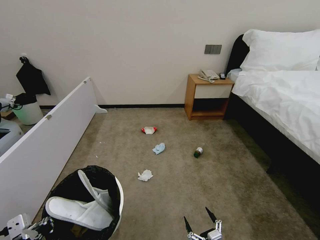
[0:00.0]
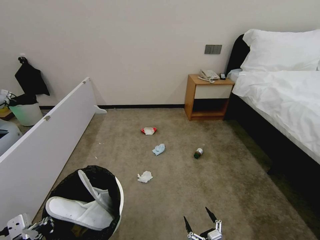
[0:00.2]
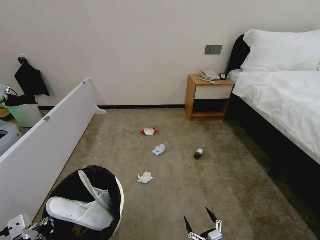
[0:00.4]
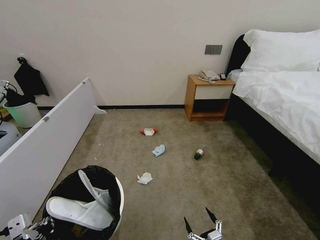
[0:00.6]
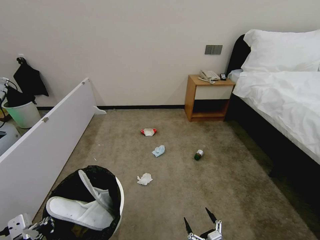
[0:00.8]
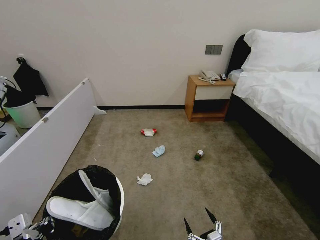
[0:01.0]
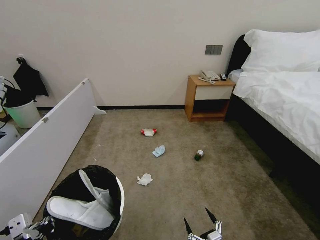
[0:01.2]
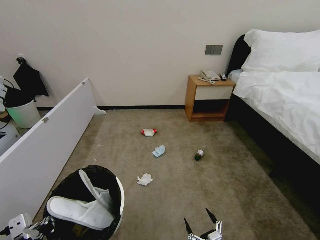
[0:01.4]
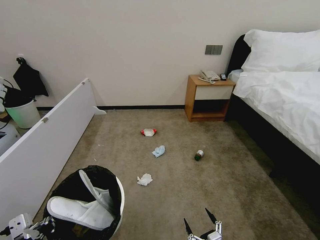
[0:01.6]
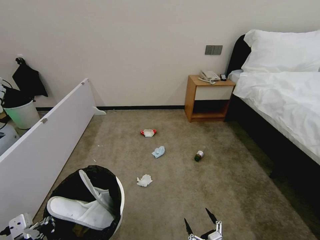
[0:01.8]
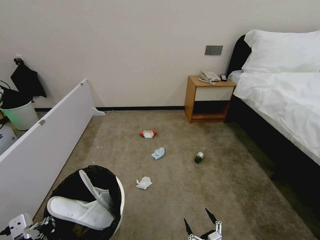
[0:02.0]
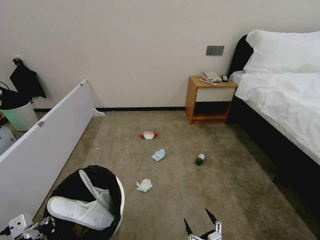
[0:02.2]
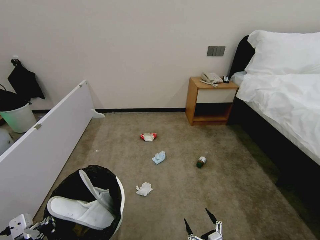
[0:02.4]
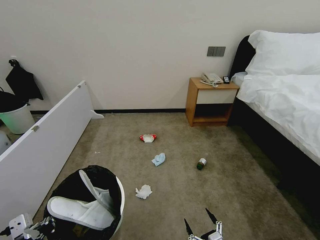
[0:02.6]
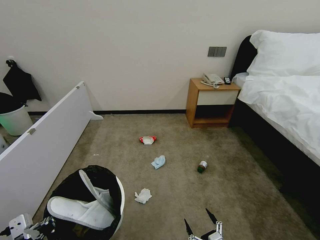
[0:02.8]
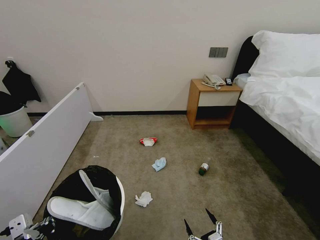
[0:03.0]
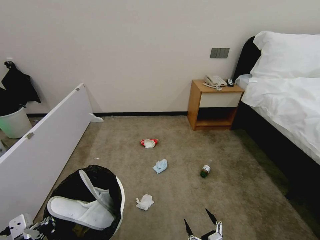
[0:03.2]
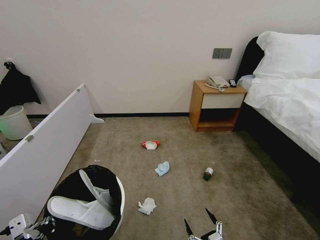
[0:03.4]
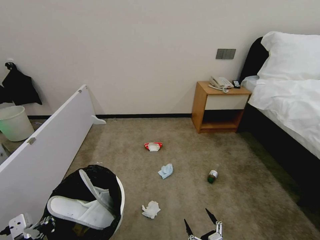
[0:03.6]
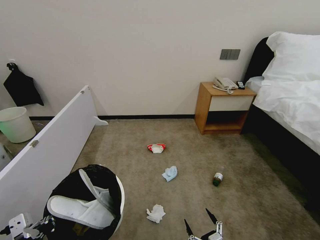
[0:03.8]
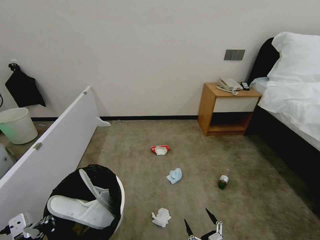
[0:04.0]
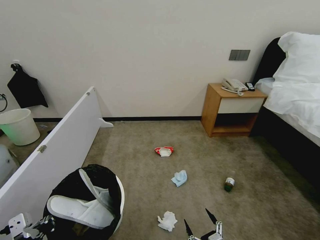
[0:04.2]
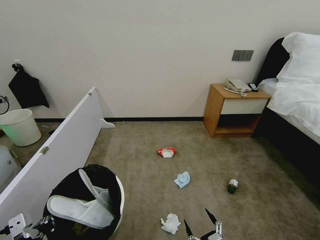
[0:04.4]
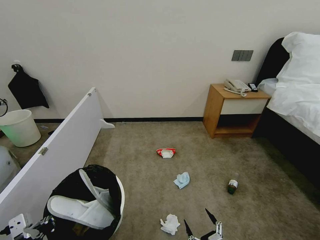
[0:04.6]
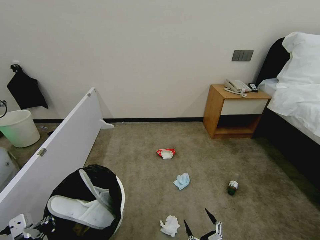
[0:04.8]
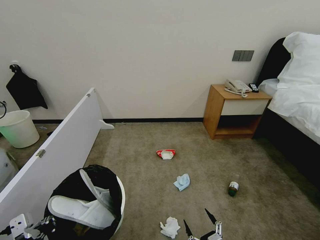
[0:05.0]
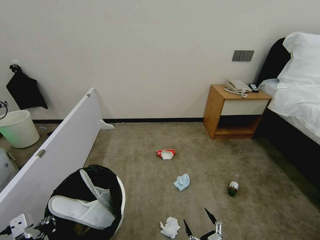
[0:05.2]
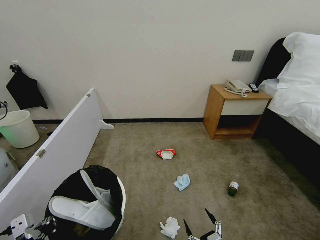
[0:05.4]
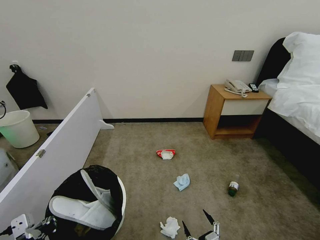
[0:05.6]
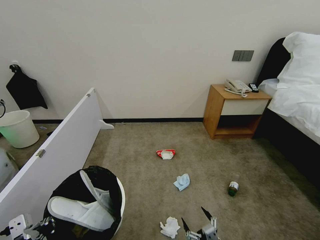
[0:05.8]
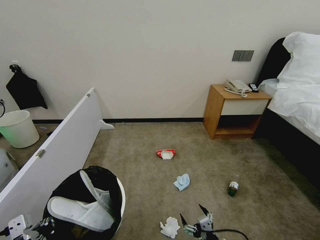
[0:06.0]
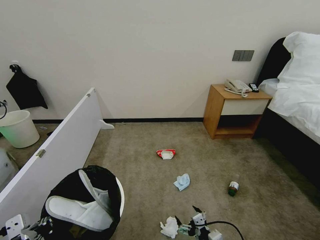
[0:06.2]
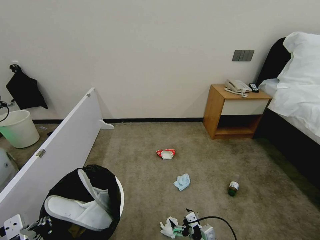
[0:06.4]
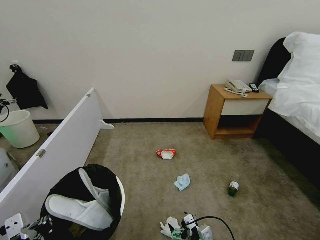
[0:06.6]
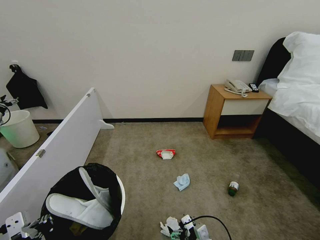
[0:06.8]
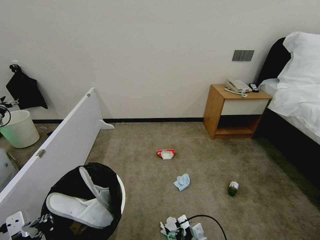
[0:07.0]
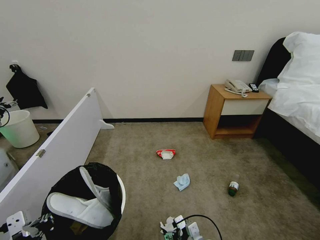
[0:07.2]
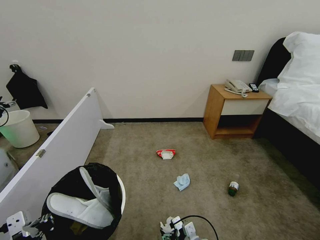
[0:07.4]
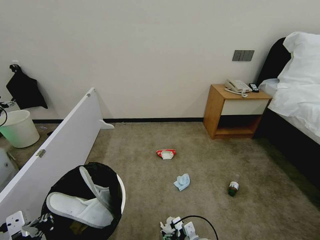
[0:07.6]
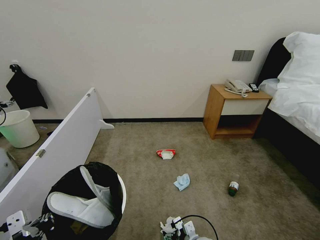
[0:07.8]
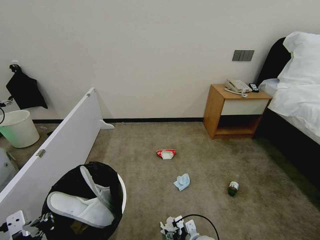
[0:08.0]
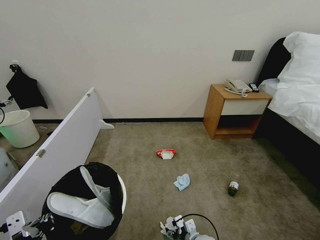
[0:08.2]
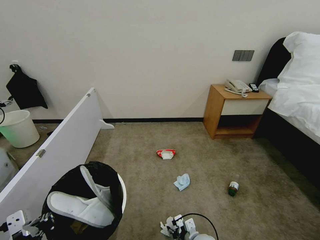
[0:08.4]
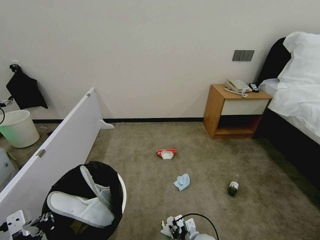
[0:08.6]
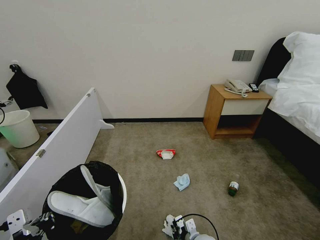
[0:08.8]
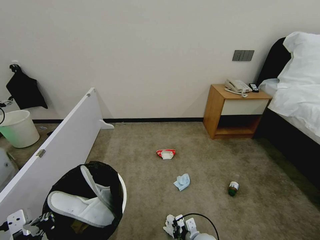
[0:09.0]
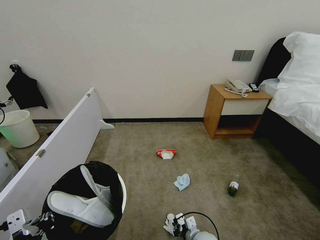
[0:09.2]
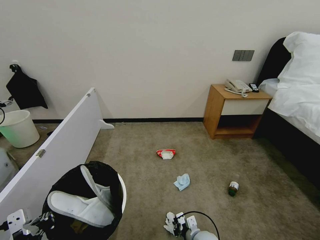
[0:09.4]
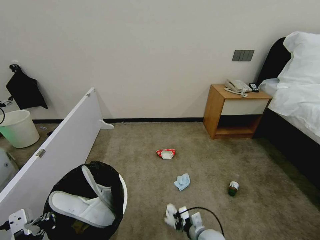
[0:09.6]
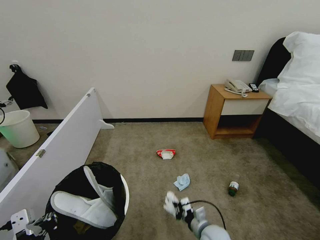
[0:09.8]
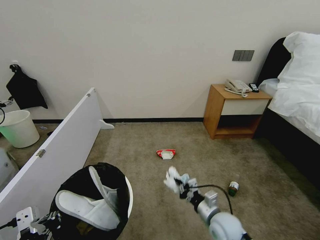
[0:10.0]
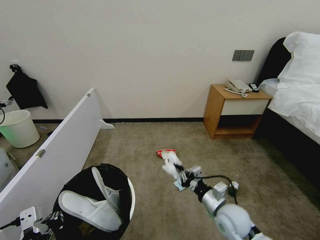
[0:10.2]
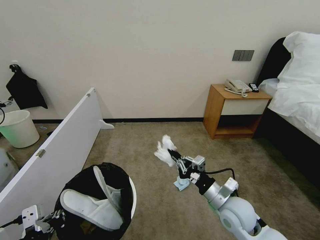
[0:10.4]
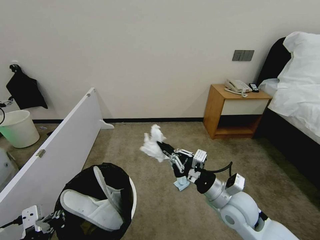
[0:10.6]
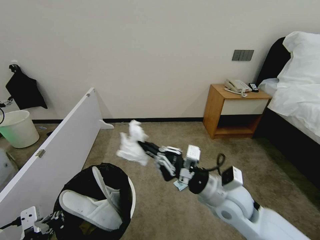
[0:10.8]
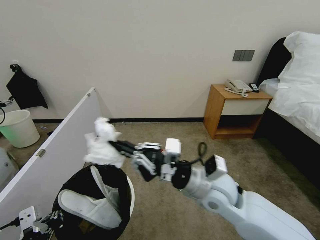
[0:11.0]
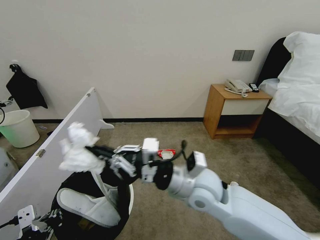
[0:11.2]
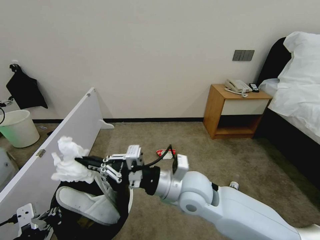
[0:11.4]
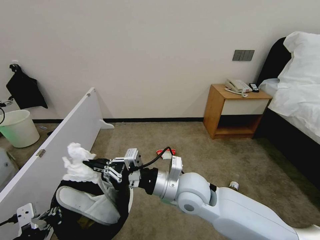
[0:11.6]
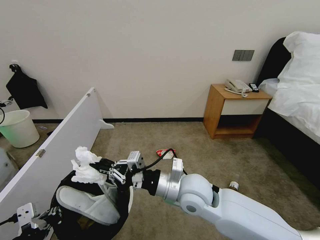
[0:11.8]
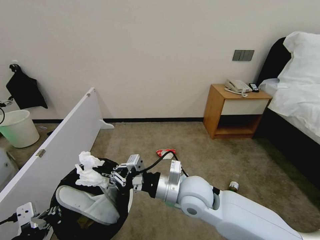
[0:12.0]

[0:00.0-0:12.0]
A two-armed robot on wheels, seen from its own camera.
Task of the whole recording: Pick up the trash bin, then pick up the garbage from the floor and place it into the trash bin.
0:00.0 to 0:03.0: Both grippers stay put.
0:04.4 to 0:06.0: The right gripper shifts approximately 5 cm forward.
0:06.0 to 0:07.6: The right gripper is displaced forward and to the left by about 10 cm.
0:07.6 to 0:09.0: The right gripper closes its fingers.
0:09.0 to 0:10.4: The right gripper is displaced upward by about 25 cm.
0:10.4 to 0:12.0: The right gripper shifts some 15 cm to the left and upward.

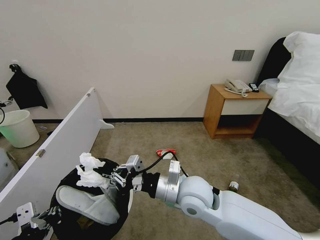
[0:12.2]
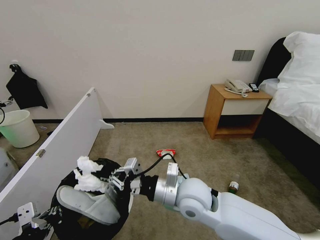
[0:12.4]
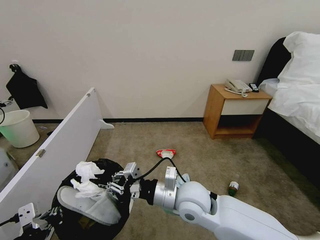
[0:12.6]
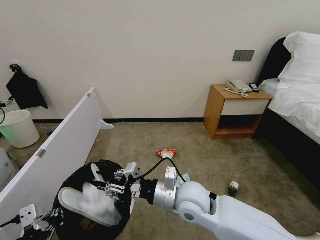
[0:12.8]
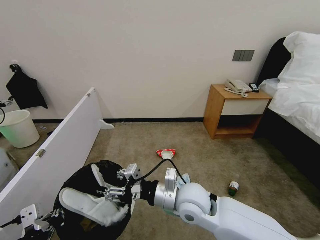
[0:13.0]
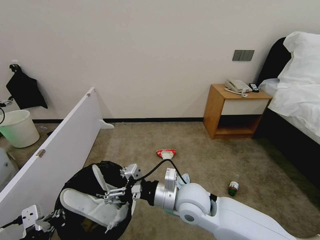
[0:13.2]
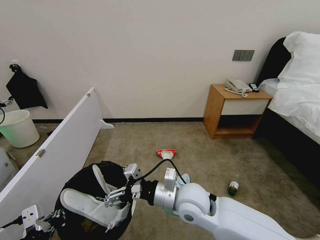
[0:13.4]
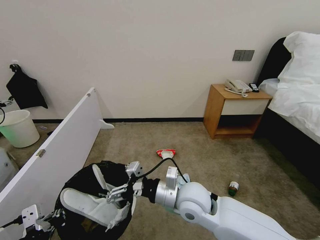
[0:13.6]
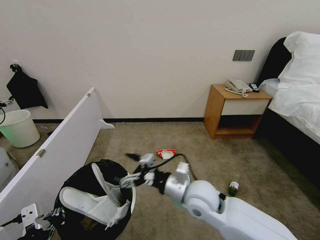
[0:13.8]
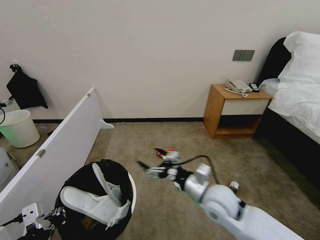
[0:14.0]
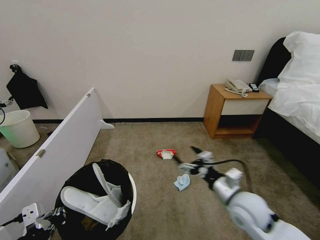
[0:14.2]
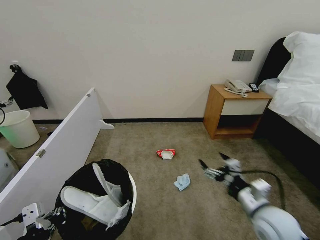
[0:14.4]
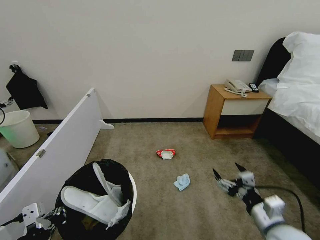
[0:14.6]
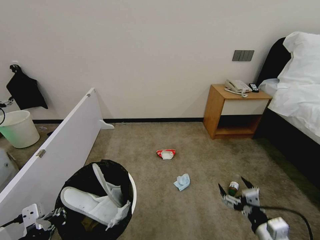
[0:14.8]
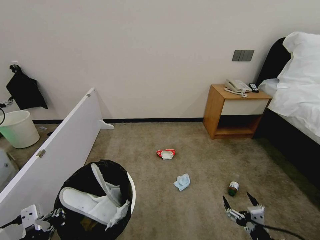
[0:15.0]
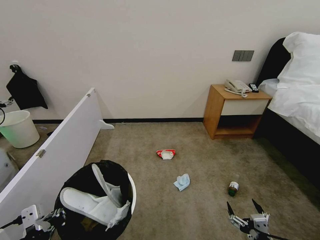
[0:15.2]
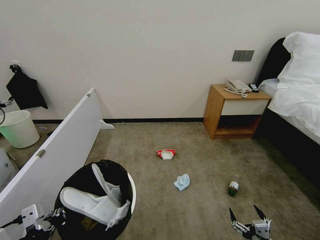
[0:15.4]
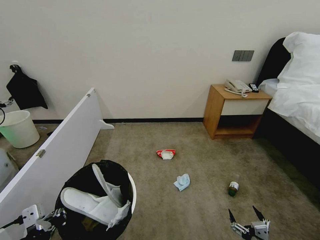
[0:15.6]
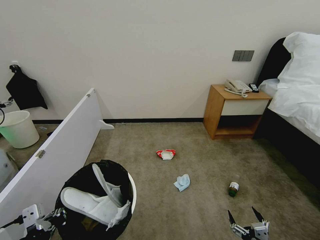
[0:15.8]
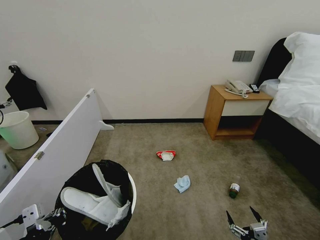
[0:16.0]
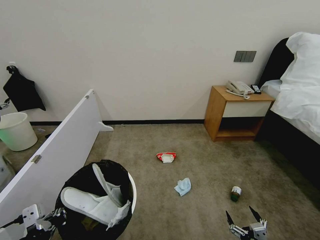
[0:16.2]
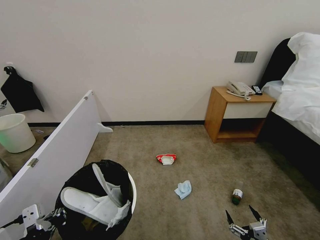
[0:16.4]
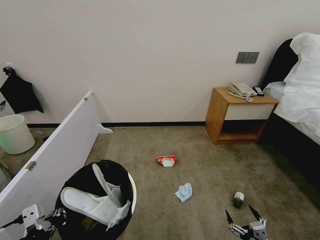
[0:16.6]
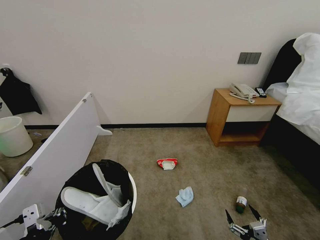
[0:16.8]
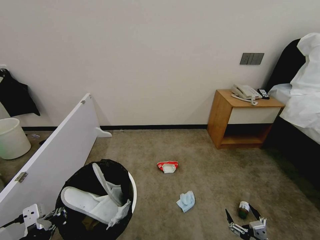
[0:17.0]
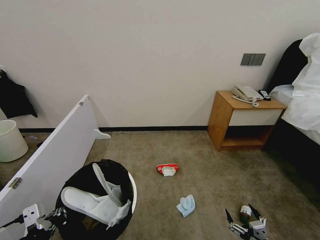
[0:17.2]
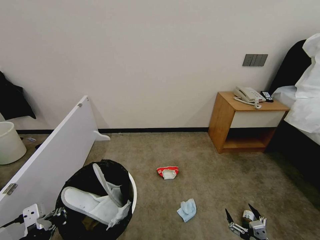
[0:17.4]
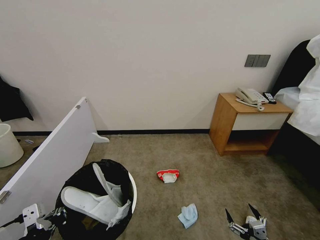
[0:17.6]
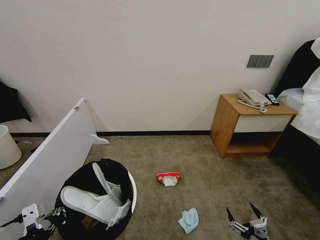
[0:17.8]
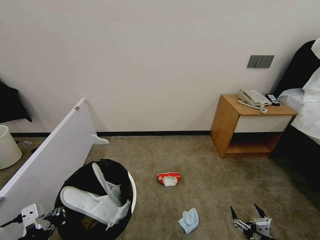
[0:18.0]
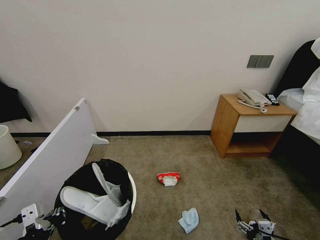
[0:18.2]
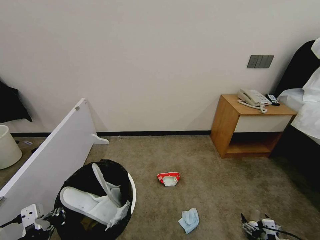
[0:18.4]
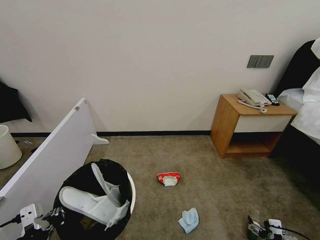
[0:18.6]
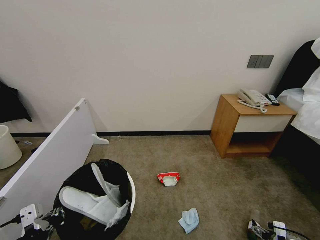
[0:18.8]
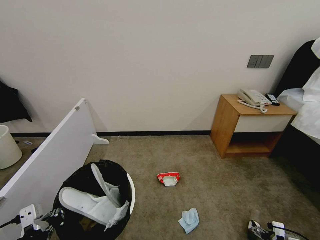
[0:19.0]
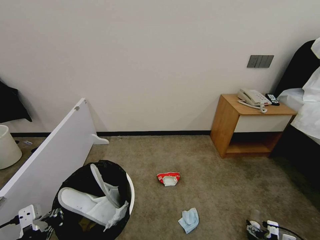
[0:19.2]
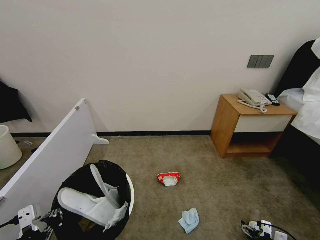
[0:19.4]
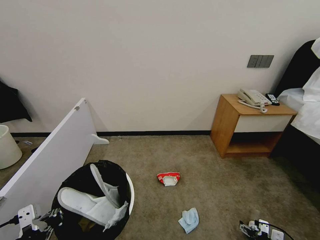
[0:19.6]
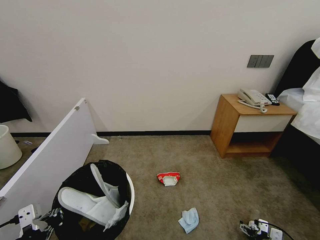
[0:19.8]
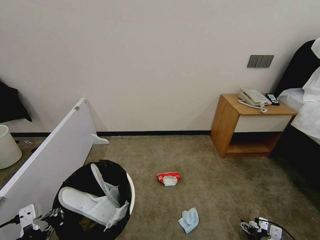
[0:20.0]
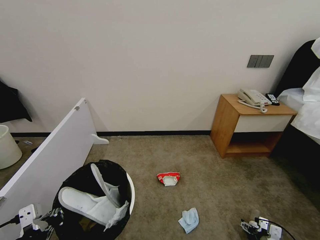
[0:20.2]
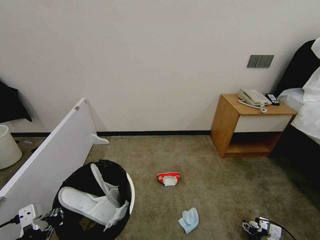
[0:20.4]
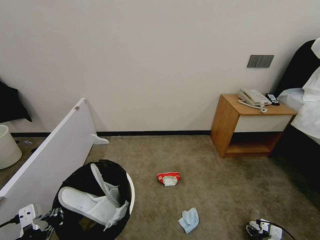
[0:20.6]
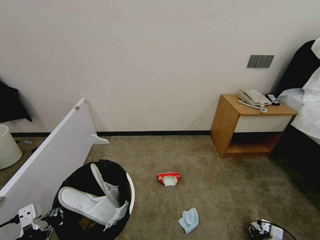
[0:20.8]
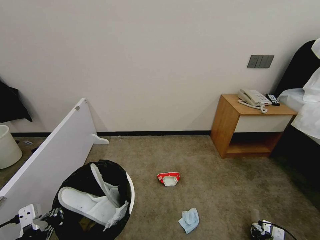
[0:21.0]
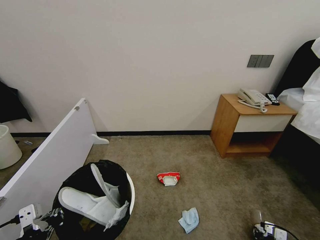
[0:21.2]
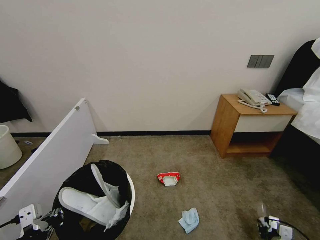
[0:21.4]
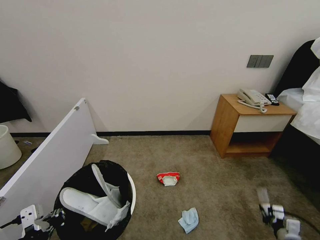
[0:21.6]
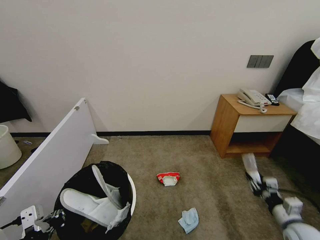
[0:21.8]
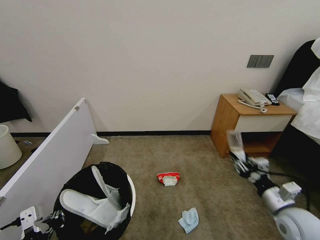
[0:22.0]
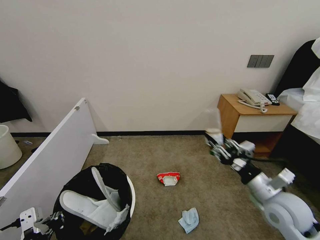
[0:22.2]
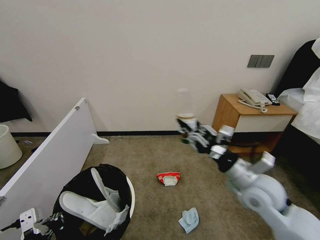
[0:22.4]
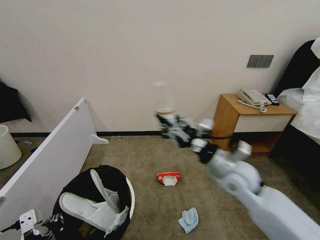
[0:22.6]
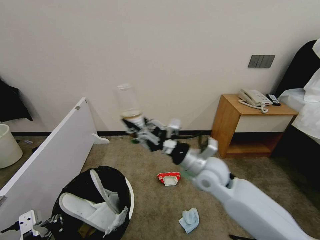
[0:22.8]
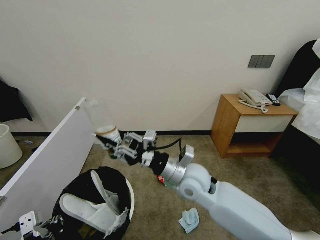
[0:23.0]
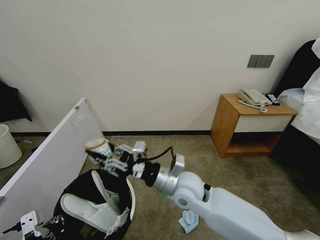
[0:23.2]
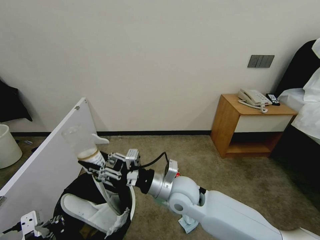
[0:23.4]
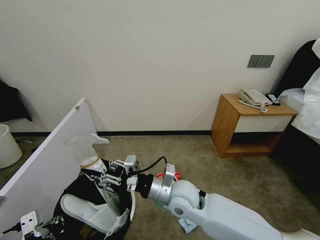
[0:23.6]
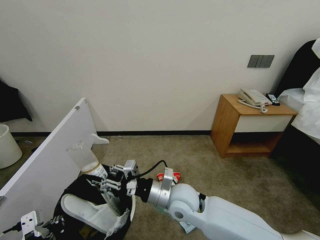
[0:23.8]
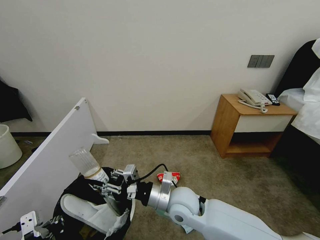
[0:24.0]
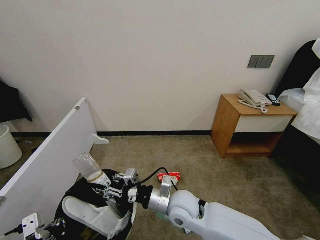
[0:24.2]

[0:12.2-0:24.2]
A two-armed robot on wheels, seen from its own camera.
Task of the whole recording: Pick up the trash bin, then pick up the garbage from the floor and place it into the trash bin.
0:12.2 to 0:13.8: The right gripper opens its fingers.
0:13.8 to 0:15.2: The right gripper heads to the right, backward and downward, covering about 35 cm.
0:15.2 to 0:16.6: The grippers make only small movements.
0:18.2 to 0:19.8: The right gripper heads forward, downward and to the right, covering approximately 15 cm.
0:19.8 to 0:21.2: The right gripper closes.
0:21.2 to 0:22.6: The right gripper heads upward and to the left, covering about 40 cm.
0:22.6 to 0:24.2: The right gripper is displaced to the left and downward by roughly 20 cm.
